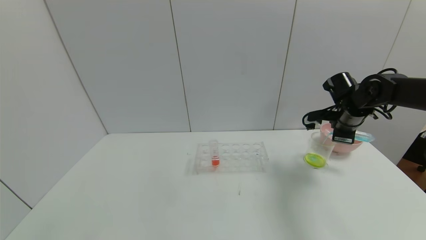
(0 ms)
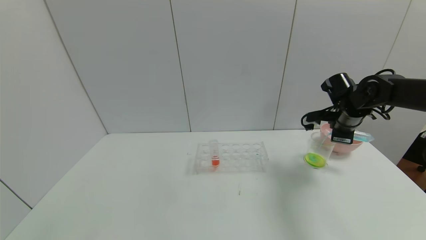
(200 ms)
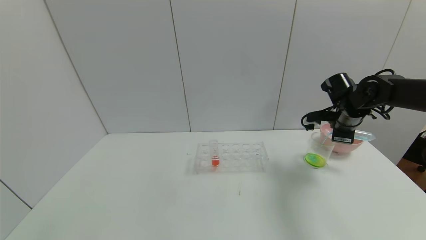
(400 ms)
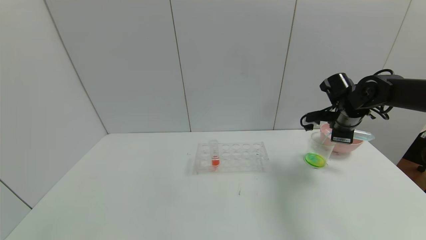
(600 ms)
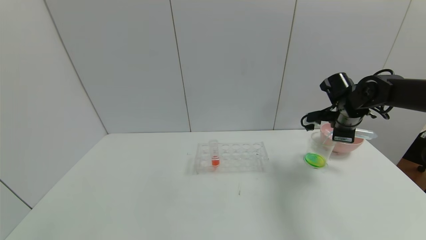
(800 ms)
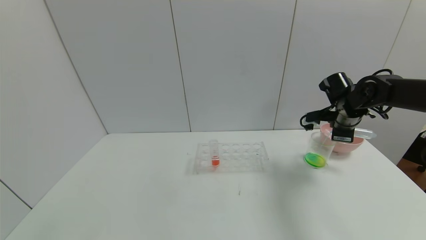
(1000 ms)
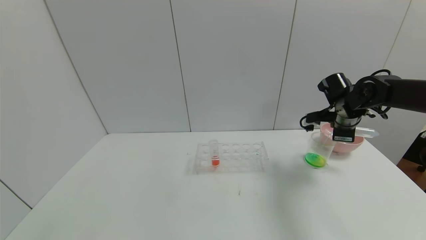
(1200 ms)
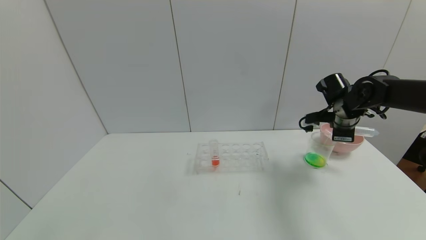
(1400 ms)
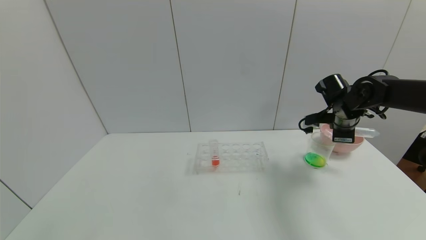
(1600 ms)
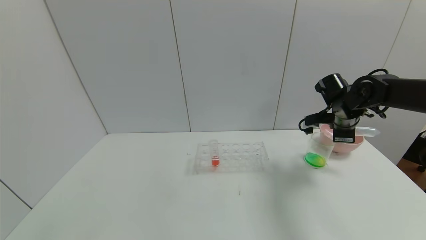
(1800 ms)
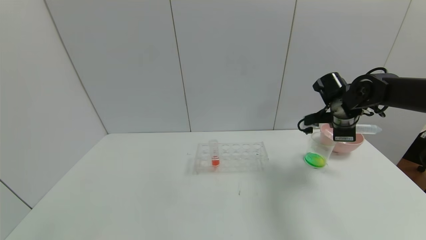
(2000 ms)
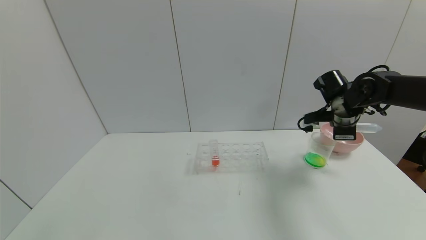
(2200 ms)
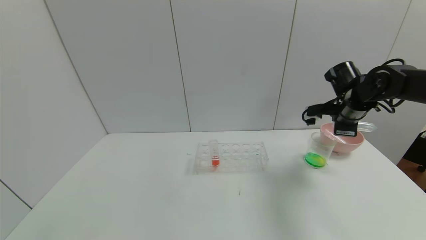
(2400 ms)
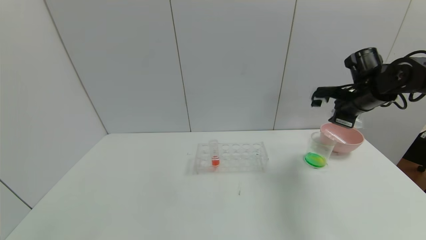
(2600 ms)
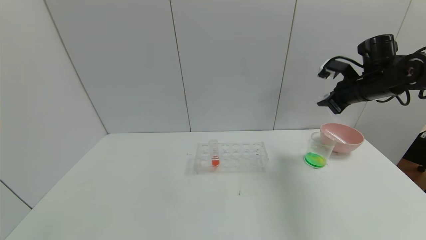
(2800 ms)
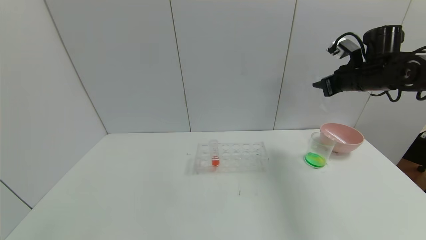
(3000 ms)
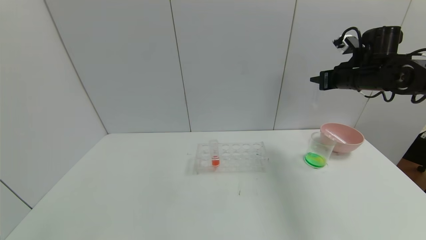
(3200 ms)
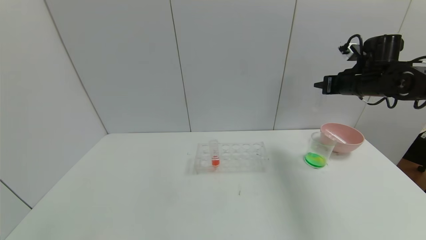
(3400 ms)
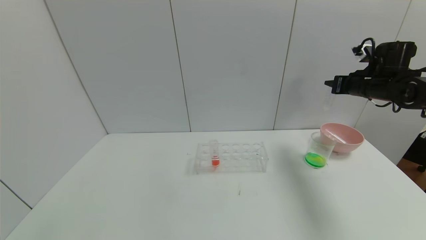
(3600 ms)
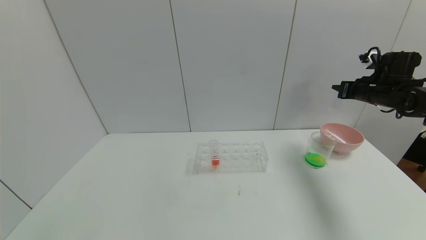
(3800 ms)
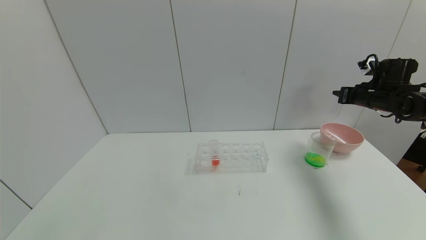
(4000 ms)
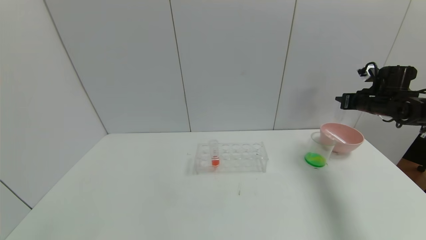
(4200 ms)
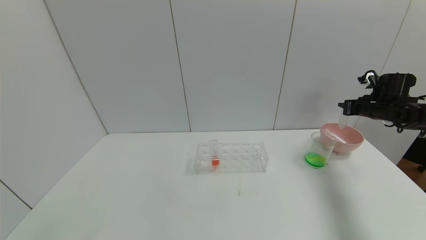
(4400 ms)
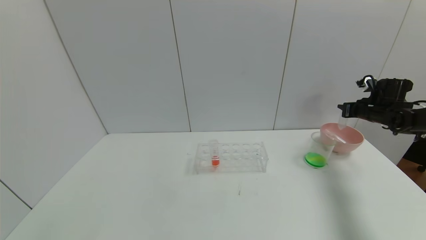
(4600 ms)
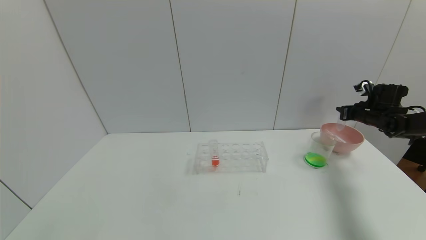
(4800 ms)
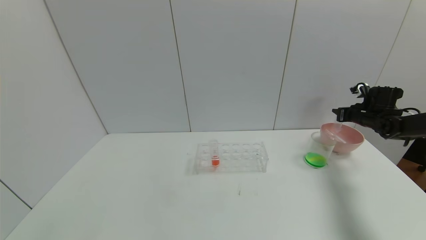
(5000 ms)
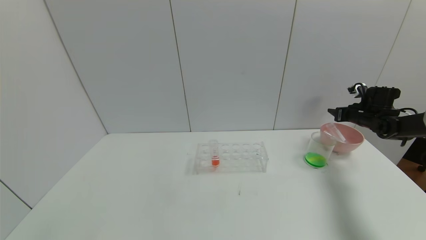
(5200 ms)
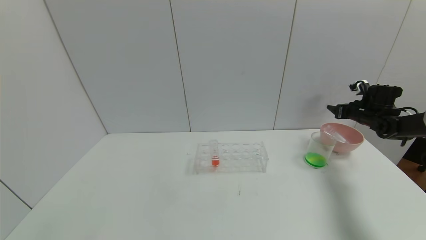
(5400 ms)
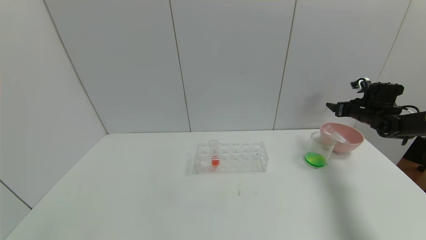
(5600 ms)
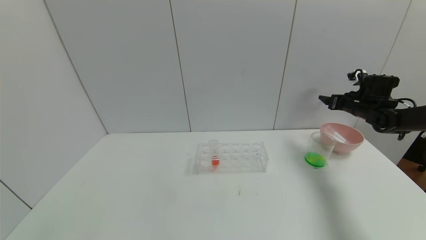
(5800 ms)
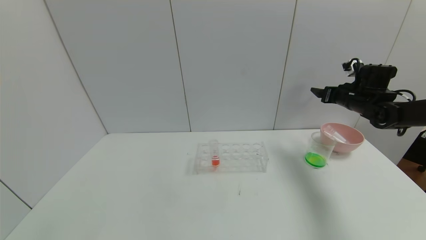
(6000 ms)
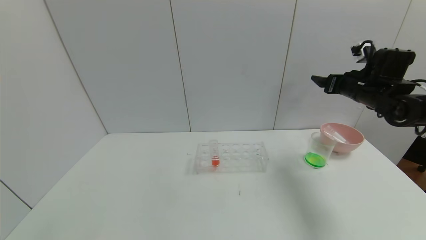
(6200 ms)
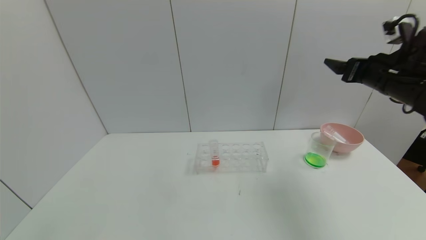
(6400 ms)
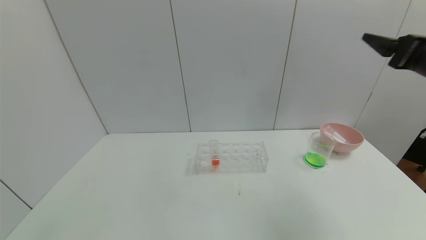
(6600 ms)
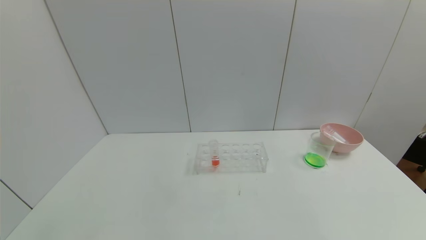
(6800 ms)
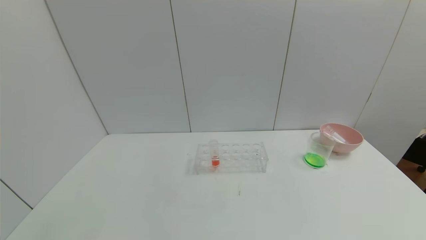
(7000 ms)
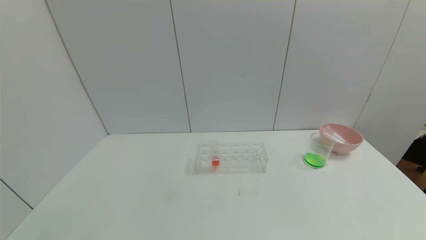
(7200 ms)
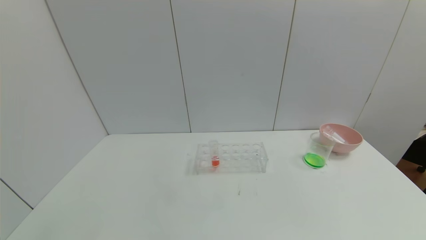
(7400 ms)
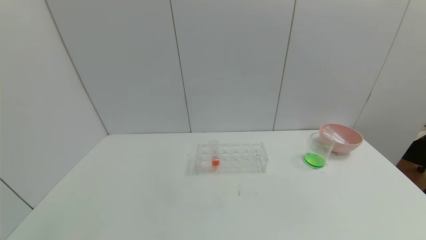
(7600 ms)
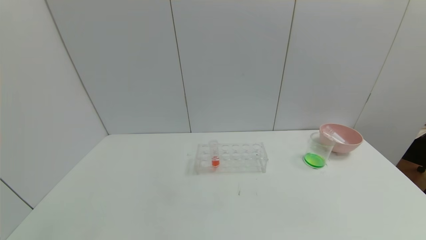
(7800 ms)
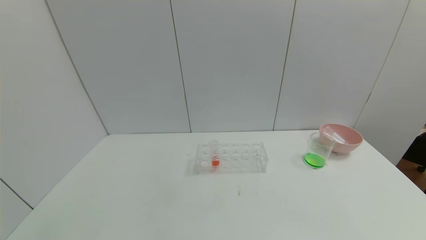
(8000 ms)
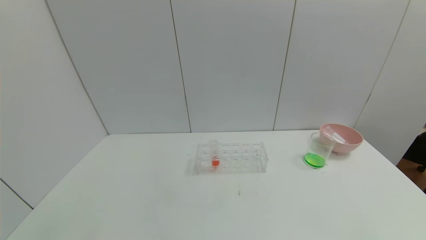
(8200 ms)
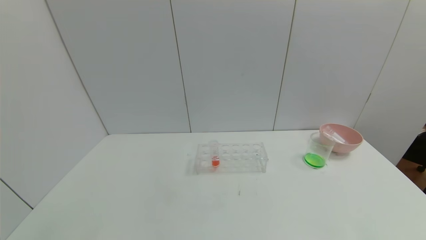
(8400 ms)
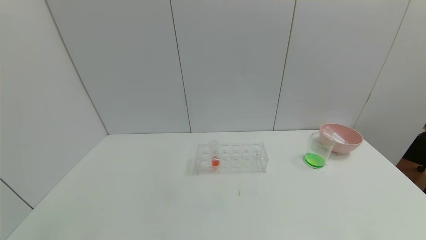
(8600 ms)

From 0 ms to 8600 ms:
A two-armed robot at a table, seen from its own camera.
Task of the whole recording: pick up the test tube with yellow pigment and the test tube with blue pigment by grippers and pour them into the beaker.
Step, from 0 ms to 2200 ms: Pour the blue reagent into the graduated cylinder with the right gripper.
Step, from 2400 ms to 5200 ms: Place the test tube into the bowl with the right gripper.
From 0 ms to 1400 ms: The grippers stay close to where they were, moving slightly.
From 1400 ms to 2800 ms: The right gripper moves upward, about 5 cm.
From 2800 ms to 4400 ms: The right gripper goes roughly 15 cm to the right and downward.
From 4400 ms to 5800 ms: The right gripper opens.
From 5800 ms to 7200 ms: The right gripper shifts some 50 cm backward.
